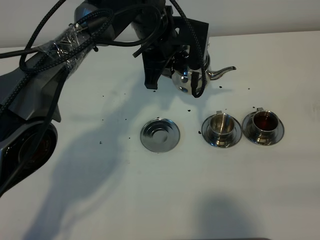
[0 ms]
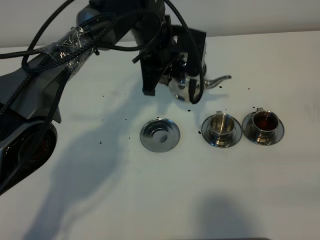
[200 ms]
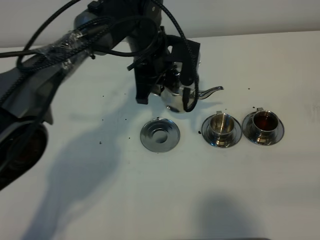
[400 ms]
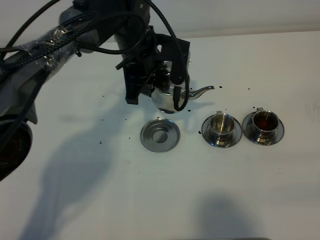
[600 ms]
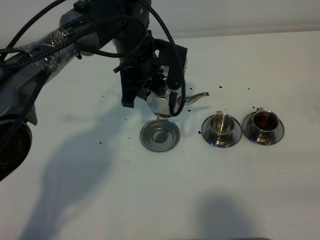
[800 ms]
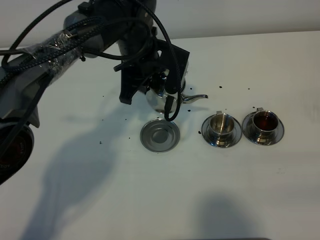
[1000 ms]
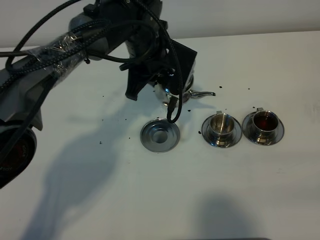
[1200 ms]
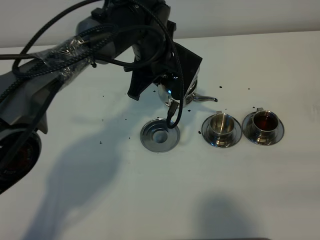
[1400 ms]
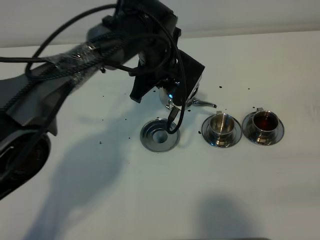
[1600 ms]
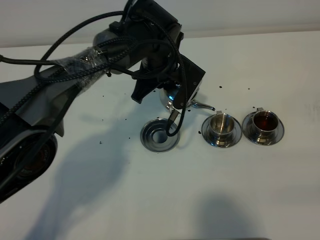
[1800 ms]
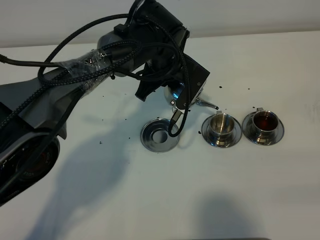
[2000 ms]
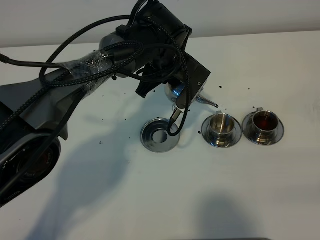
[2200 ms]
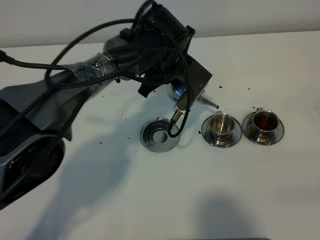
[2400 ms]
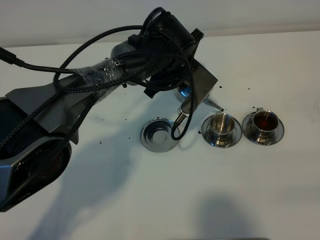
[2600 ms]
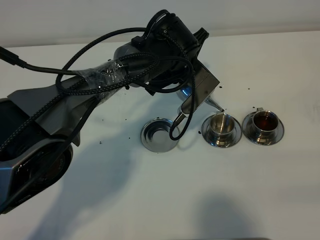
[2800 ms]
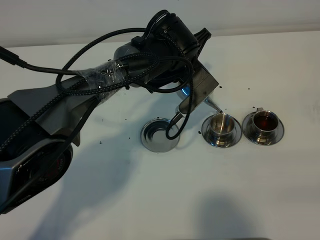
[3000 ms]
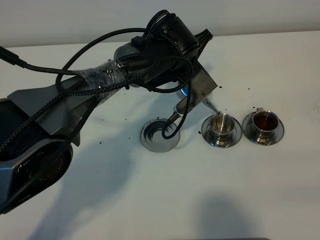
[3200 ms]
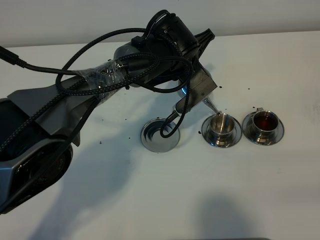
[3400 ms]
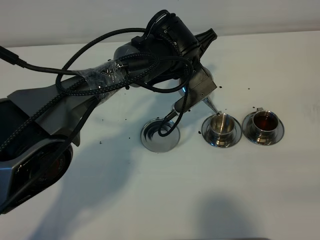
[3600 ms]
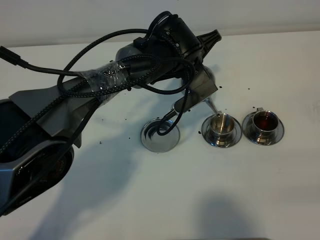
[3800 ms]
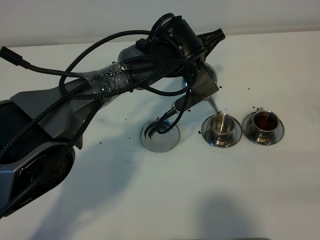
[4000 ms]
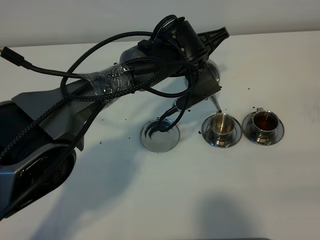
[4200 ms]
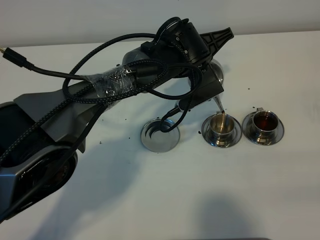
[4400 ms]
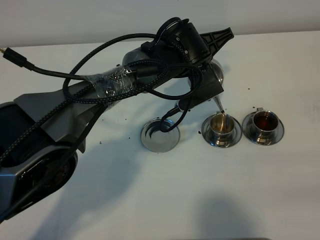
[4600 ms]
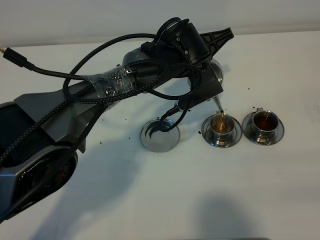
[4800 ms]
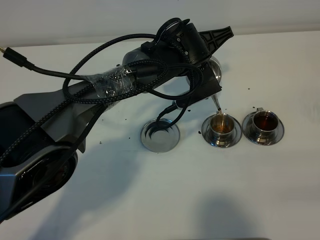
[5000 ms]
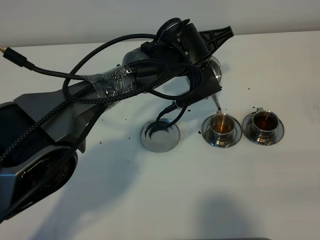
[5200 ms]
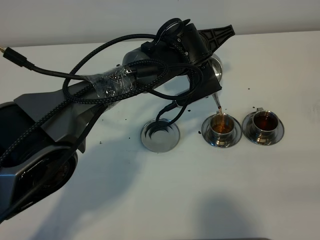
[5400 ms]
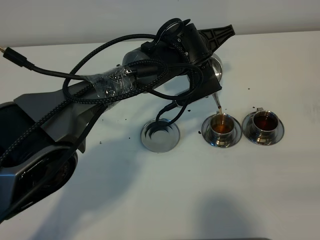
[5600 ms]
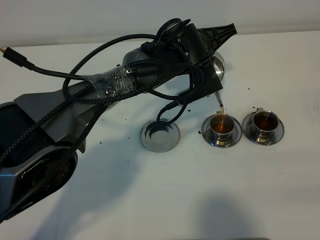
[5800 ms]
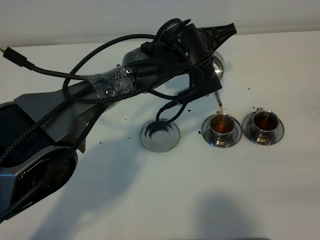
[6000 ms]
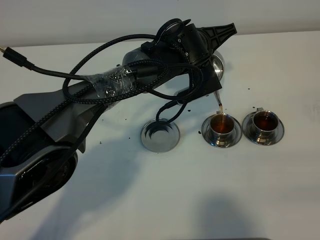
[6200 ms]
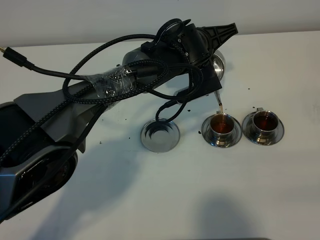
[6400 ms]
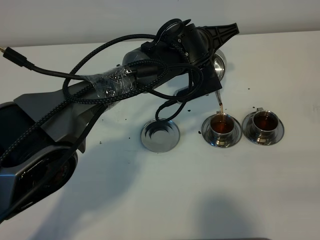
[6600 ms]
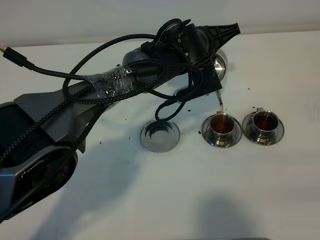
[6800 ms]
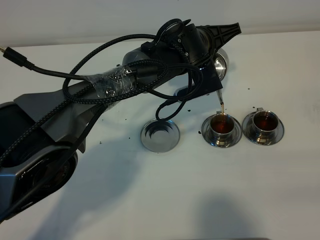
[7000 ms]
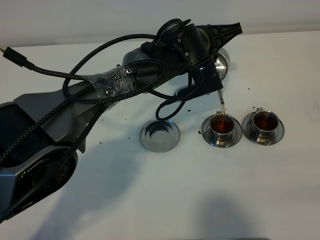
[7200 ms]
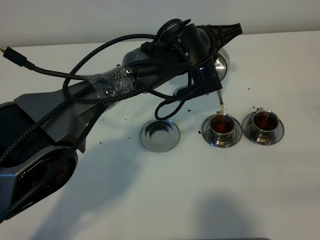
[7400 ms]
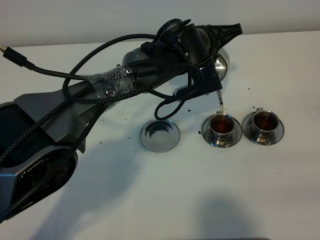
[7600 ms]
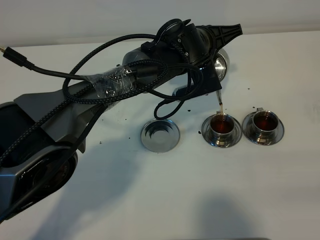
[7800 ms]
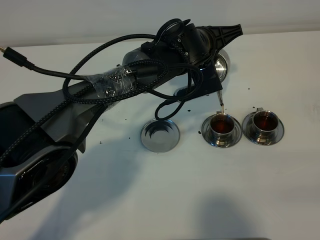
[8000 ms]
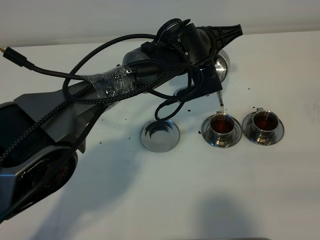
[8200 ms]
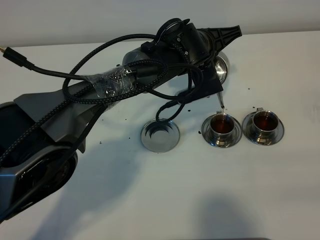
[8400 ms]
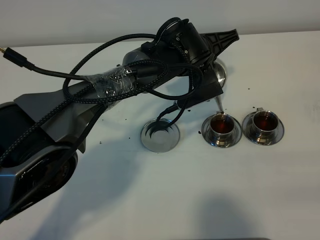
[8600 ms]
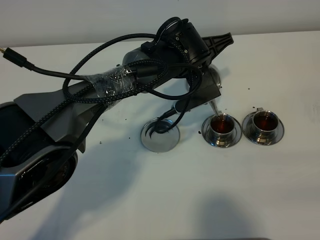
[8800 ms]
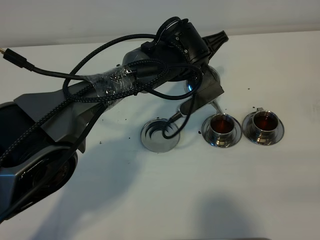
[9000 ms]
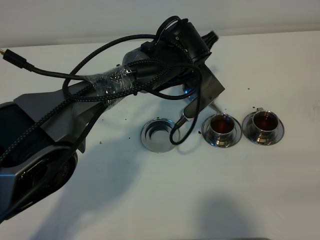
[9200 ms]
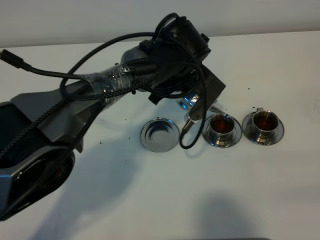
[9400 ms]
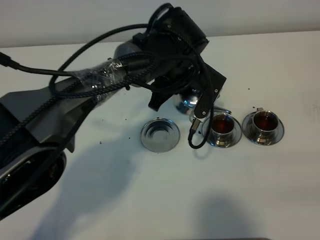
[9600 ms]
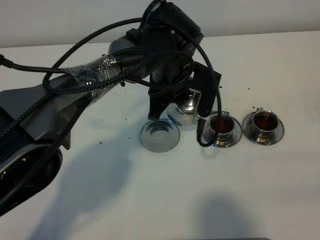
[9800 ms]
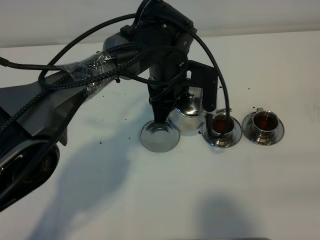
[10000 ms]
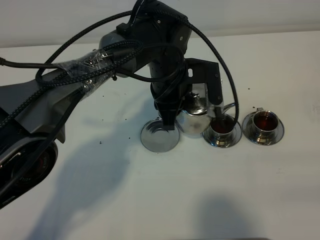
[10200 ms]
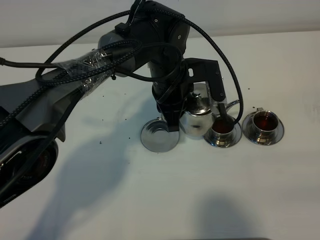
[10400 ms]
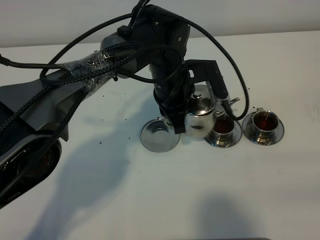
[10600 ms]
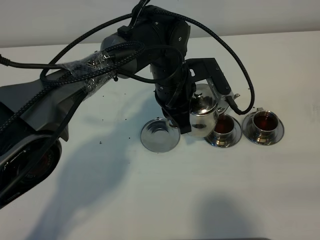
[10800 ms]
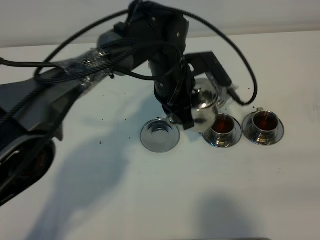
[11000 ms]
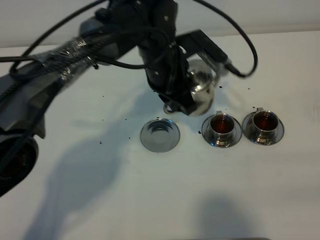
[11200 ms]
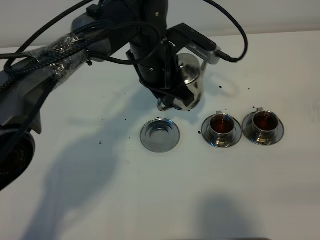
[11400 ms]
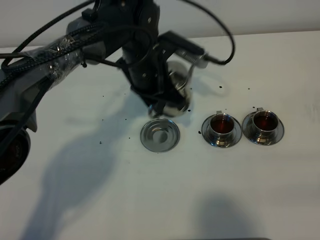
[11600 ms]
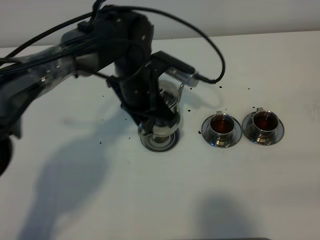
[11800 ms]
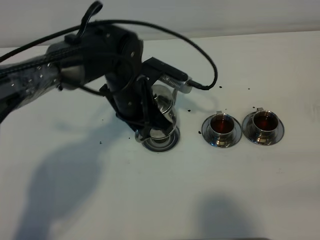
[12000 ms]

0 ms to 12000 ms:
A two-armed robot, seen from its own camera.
Task of the whole recording: grasp the stainless steel teapot and pour the tea into the two stainless steel teacups one by one, put the stainless steel teapot back in its original place.
3000 ms to 4400 ms: There are only small adjustments of the grippers.
4400 ms to 7600 ms: There are only small adjustments of the grippers.
10400 ms to 12000 ms: The left gripper moves to the left, about 5 cm.

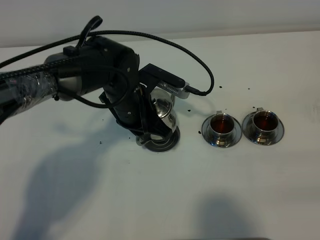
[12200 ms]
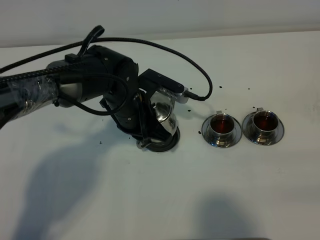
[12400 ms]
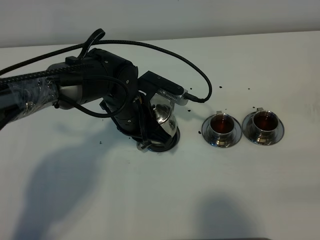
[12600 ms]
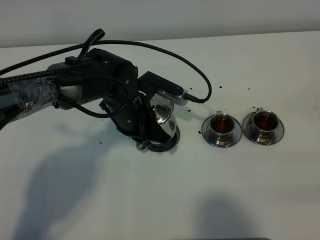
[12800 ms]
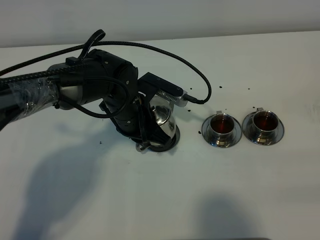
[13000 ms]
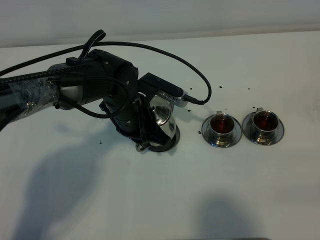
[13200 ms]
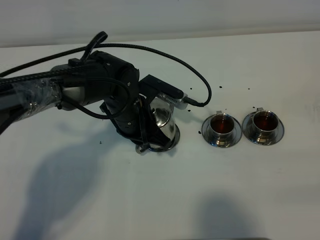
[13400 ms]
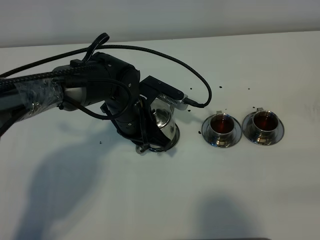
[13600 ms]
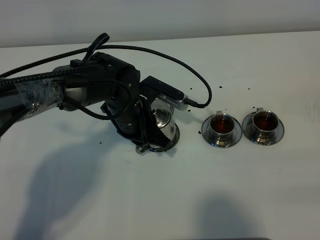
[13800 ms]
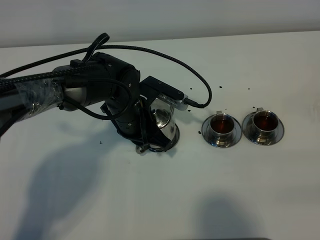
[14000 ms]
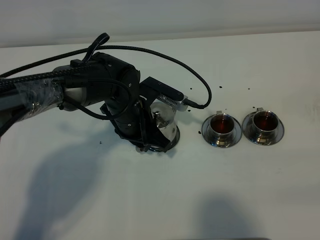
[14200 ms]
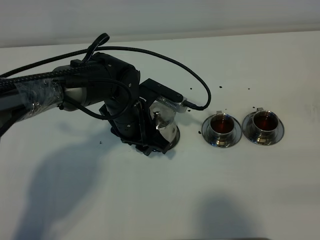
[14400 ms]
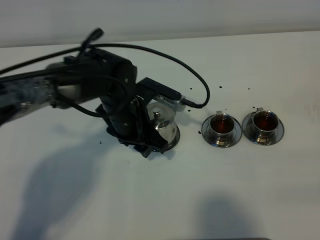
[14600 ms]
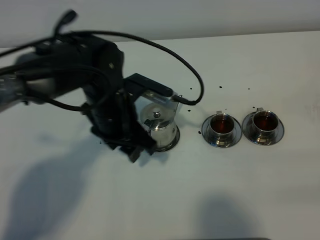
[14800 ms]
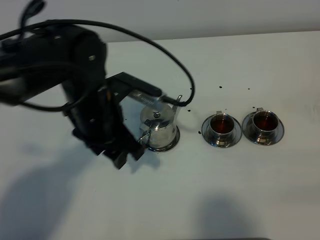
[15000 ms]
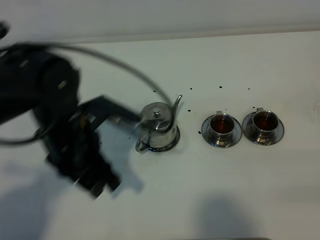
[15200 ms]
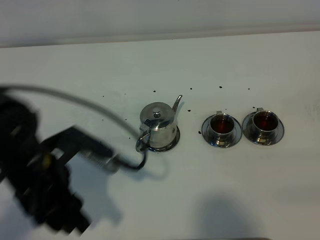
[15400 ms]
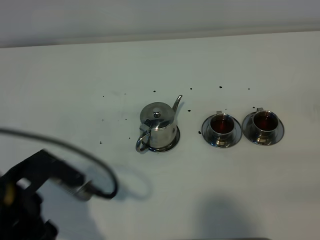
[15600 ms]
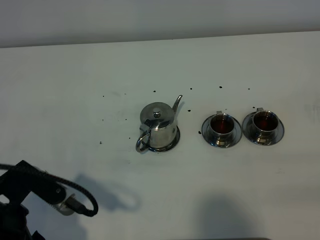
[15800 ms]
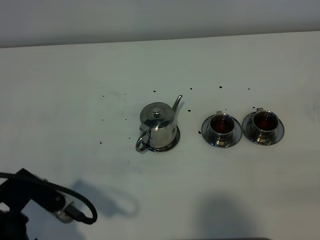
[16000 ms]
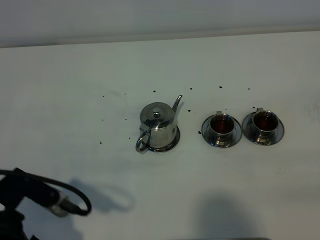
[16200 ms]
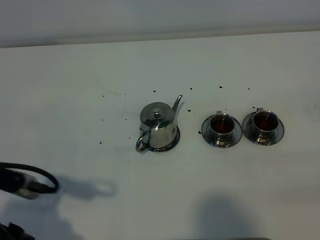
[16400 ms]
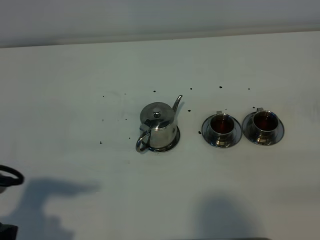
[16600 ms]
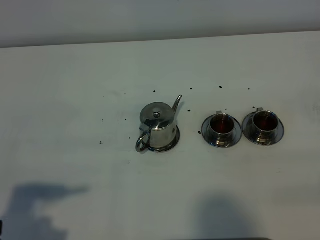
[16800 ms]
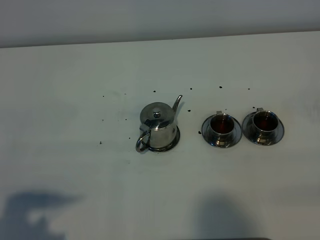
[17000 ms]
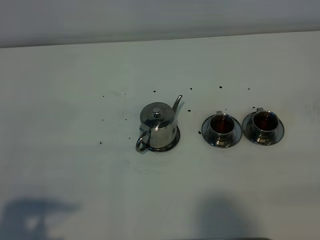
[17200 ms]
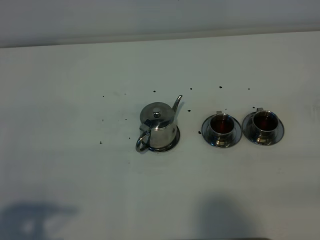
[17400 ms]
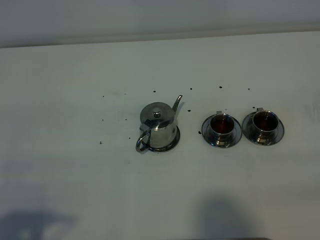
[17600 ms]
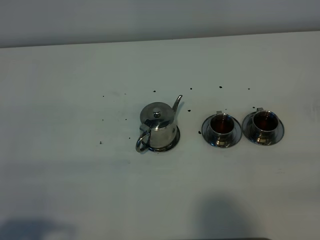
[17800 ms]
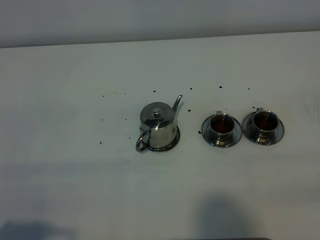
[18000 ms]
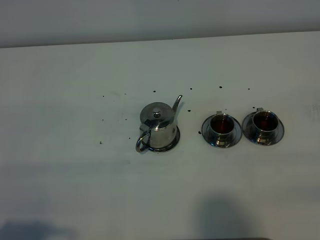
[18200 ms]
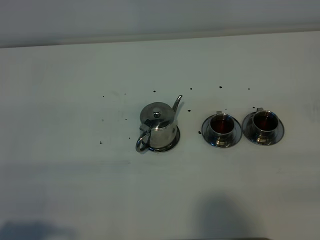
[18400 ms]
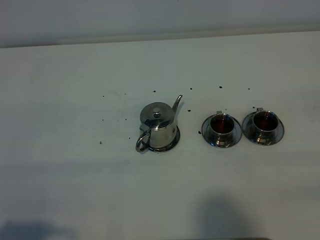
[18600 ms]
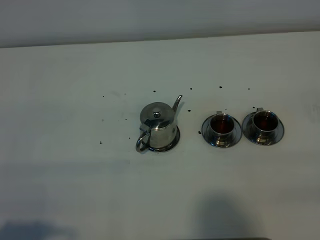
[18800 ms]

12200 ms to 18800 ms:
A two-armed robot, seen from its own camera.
Task of the whole recording: grasp the stainless steel teapot and pour the tea into the two stainless steel teacups one by one, put the stainless steel teapot back in its original place.
12200 ms to 13800 ms: The grippers make only small movements.
13800 ms to 15400 ms: The left gripper is displaced backward, to the left and upward by some 20 cm, and opens its fingers.
15400 ms to 17200 ms: The left gripper travels backward and to the left by approximately 15 cm.
17200 ms to 18800 ms: There are only small adjustments of the grippers.
